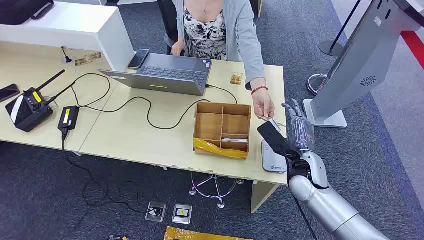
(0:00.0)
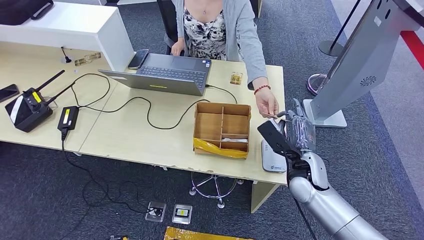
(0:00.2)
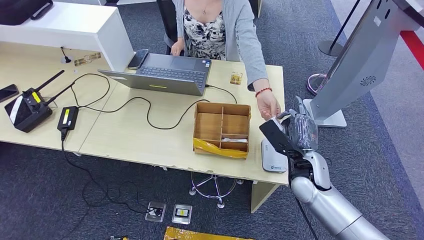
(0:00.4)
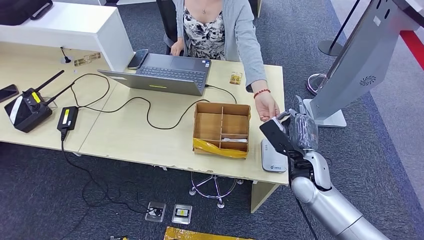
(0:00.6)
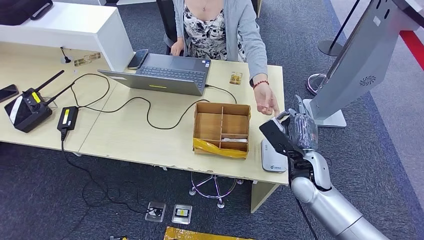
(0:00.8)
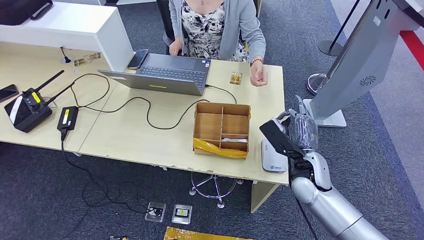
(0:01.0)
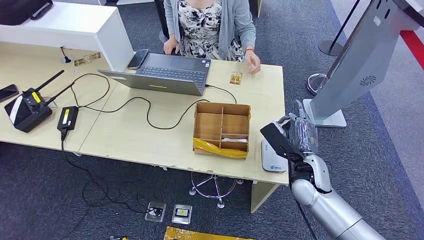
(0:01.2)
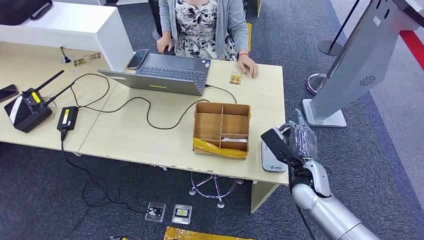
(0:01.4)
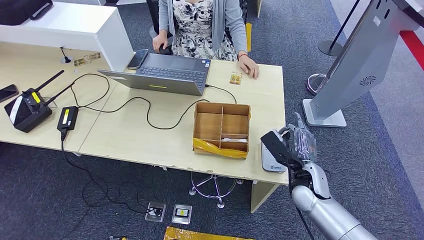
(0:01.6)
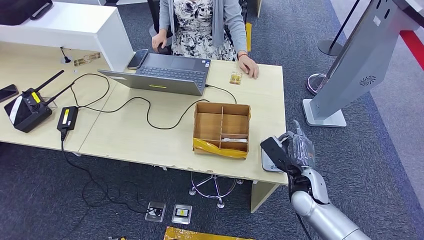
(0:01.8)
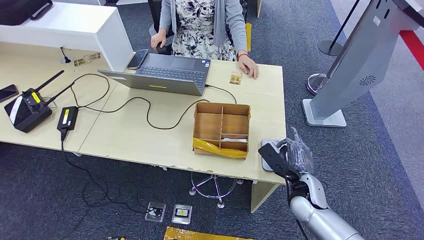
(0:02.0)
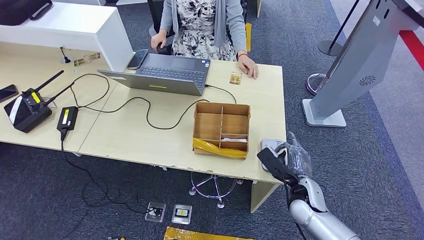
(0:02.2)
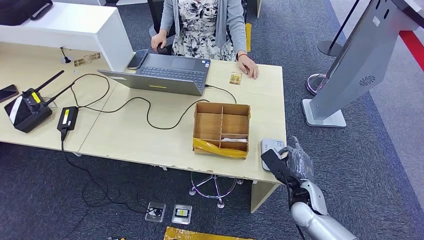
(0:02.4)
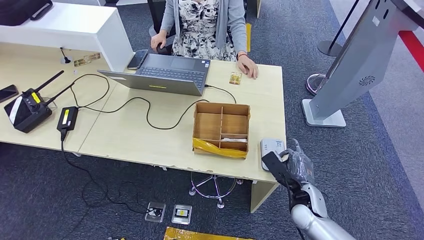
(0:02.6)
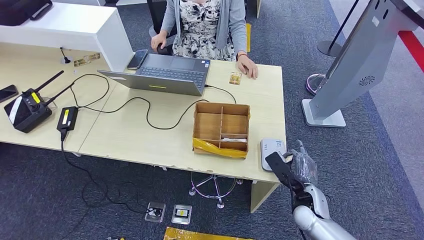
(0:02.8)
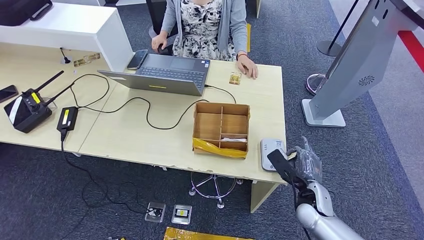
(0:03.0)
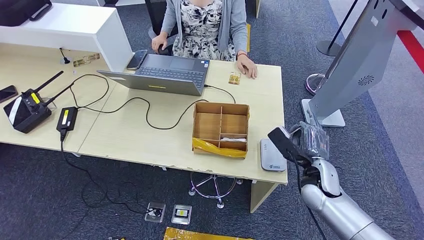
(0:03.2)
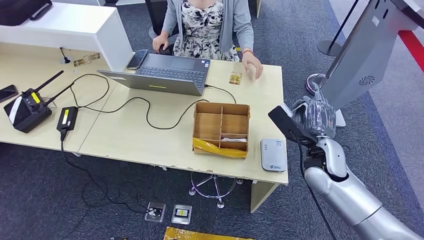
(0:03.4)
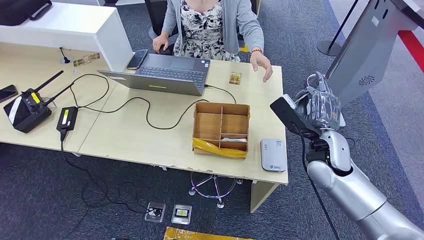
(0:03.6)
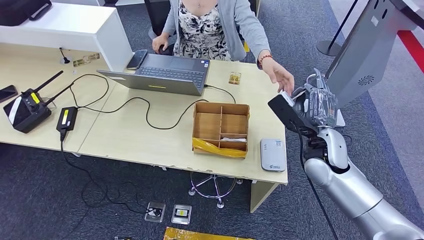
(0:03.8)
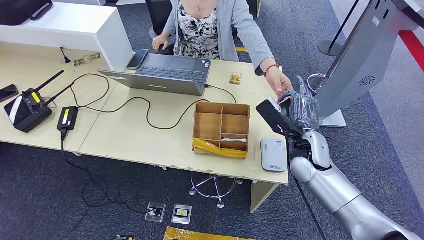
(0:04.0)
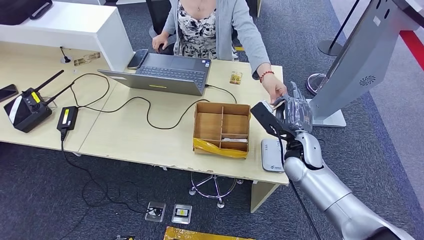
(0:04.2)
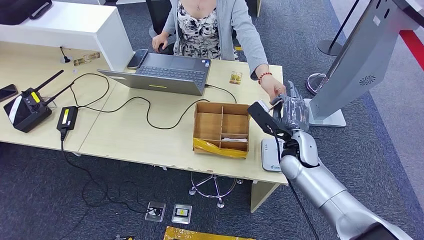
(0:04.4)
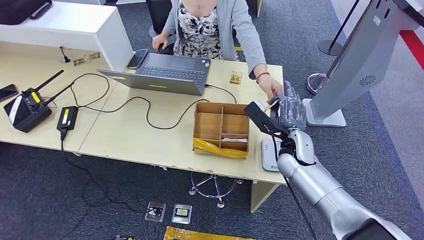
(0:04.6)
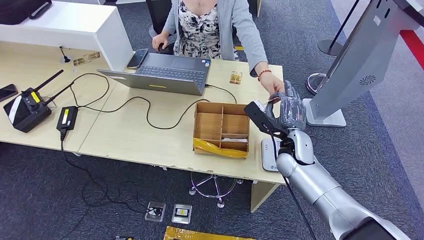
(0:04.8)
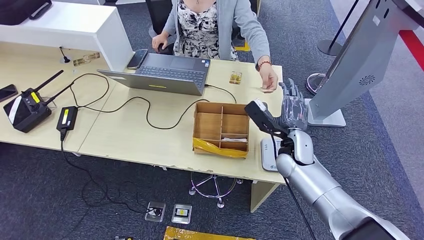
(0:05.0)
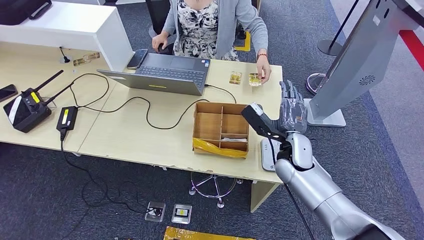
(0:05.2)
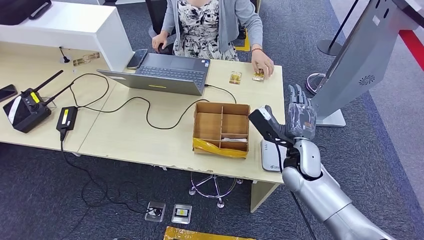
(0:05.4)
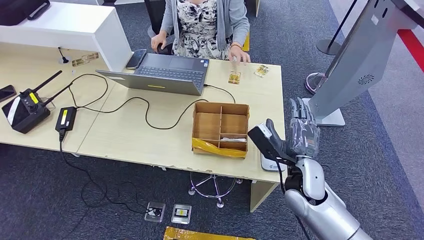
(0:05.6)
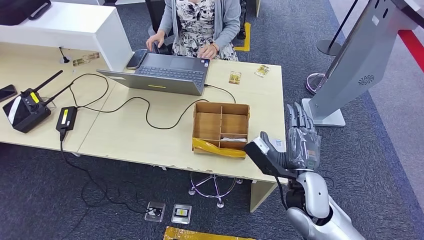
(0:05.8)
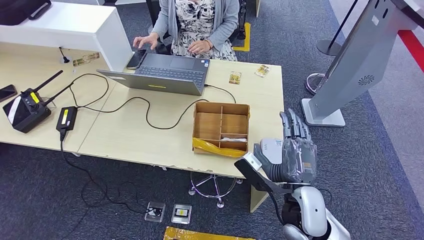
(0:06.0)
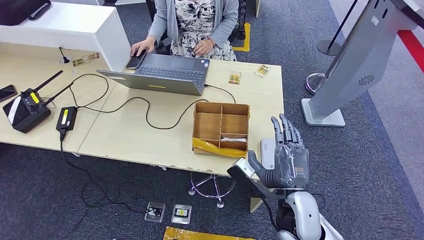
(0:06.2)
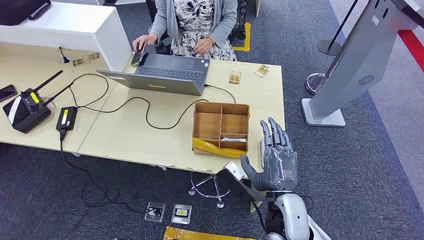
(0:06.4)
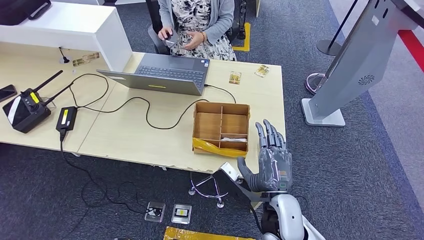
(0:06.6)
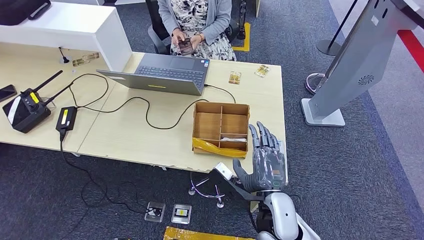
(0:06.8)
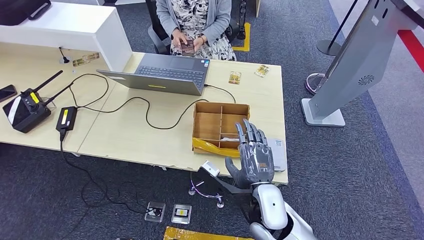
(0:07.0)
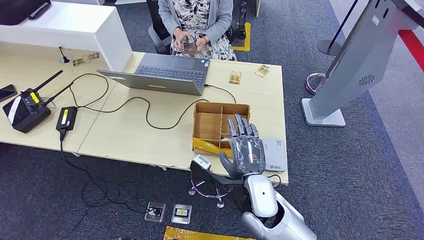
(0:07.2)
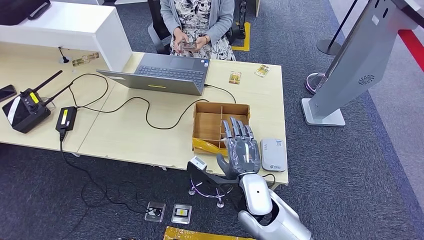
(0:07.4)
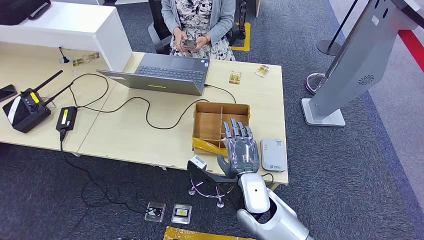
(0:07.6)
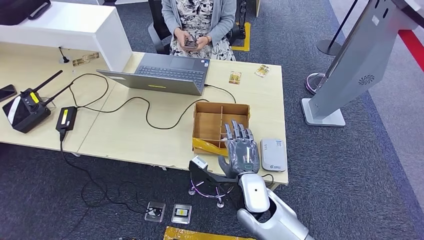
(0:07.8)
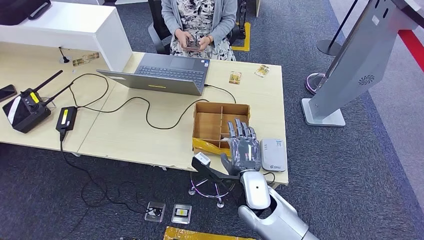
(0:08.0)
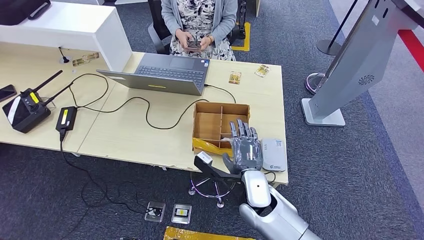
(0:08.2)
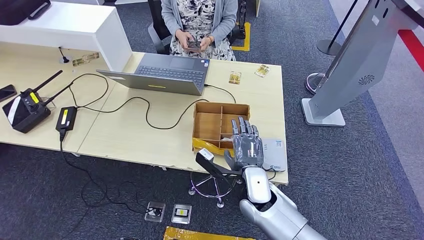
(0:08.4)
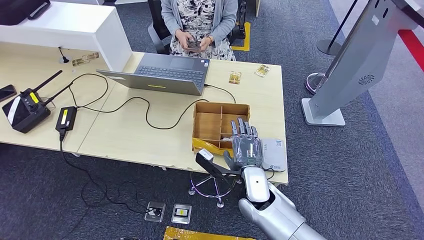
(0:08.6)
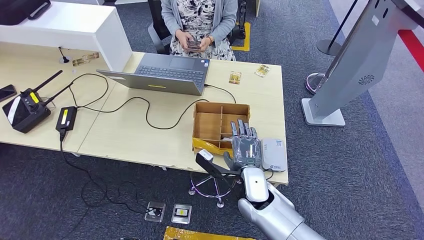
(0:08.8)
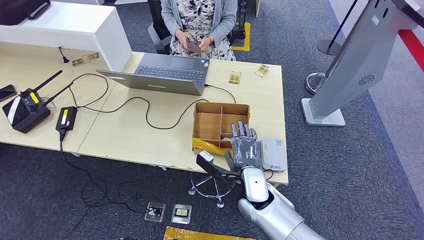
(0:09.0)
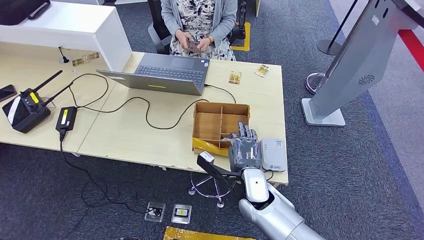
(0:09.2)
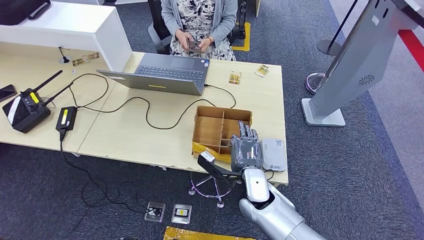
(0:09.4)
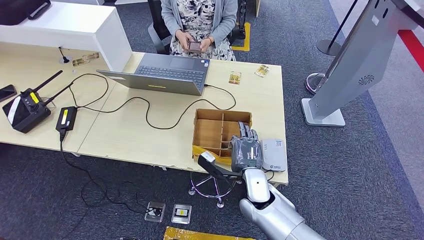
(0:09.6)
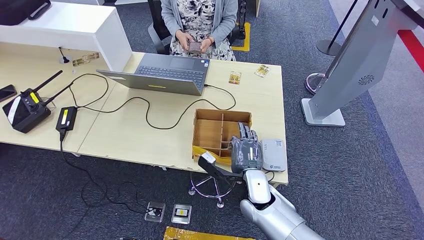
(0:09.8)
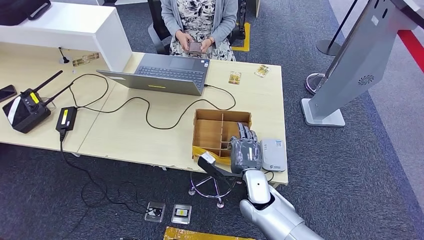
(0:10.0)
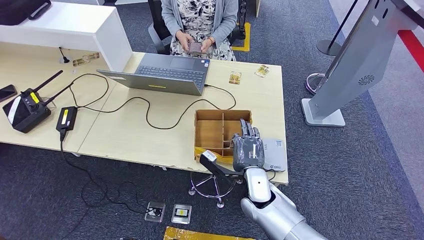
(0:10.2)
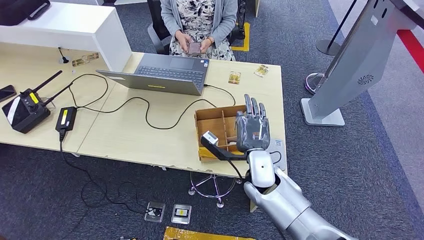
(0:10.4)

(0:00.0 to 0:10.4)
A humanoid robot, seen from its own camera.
Step, 0:00.0 - 0:01.6: Take the ID card from the person's hand.
Step, 0:01.8 - 0:03.6: Place the ID card on the card reader.
Step, 0:03.8 - 0:06.0: Hand the ID card to the person.
0:01.4 - 0:03.0: The right hand shifts approximately 5 cm downward.
0:03.0 - 0:04.4: The right hand heads upward, forward and to the left, covering some 15 cm.
0:04.4 - 0:06.0: The right hand travels backward by some 15 cm.
0:06.0 - 0:07.4: The right hand goes roughly 10 cm to the left.
0:07.4 - 0:09.0: The right hand changes place by some 5 cm.
0:09.0 - 0:10.4: The right hand moves some 5 cm.

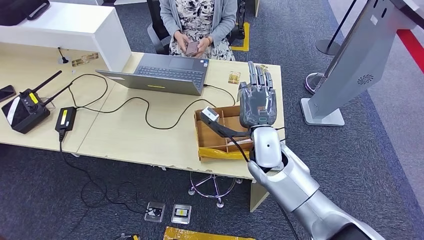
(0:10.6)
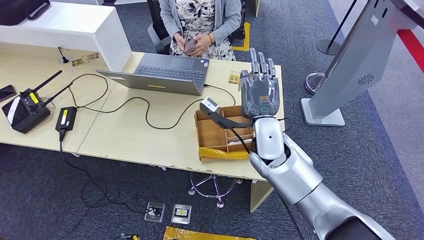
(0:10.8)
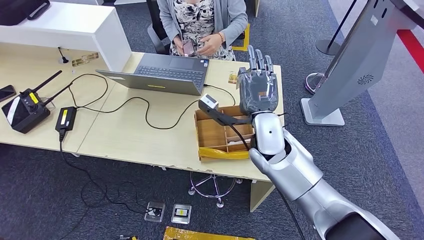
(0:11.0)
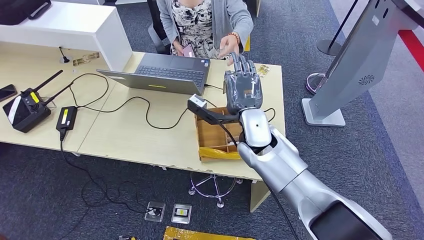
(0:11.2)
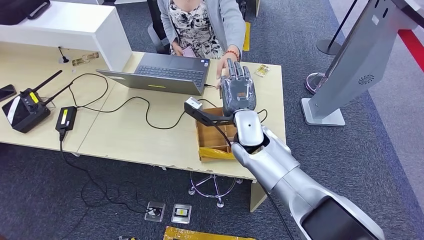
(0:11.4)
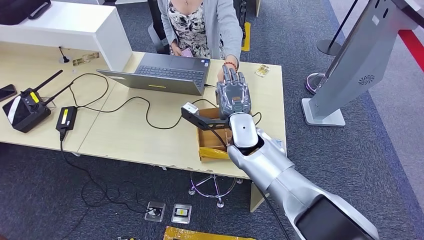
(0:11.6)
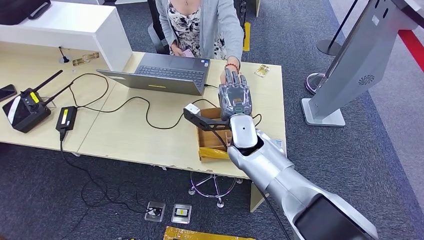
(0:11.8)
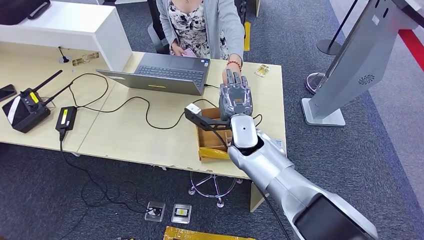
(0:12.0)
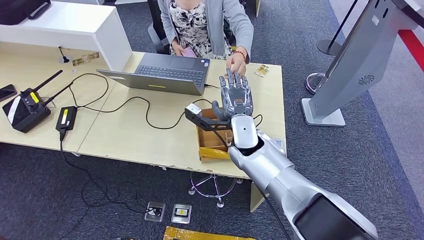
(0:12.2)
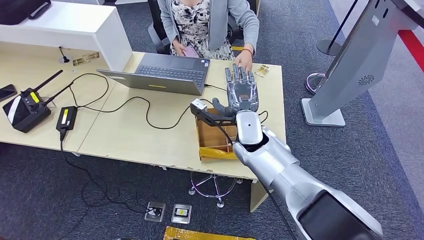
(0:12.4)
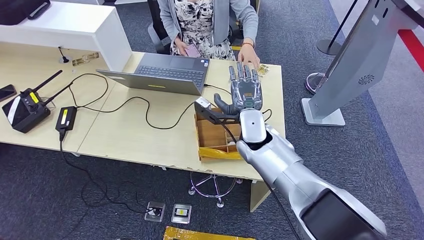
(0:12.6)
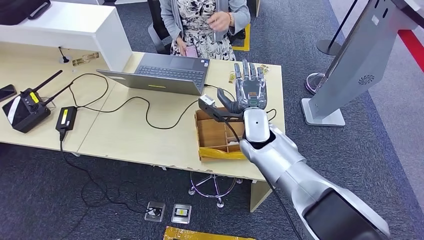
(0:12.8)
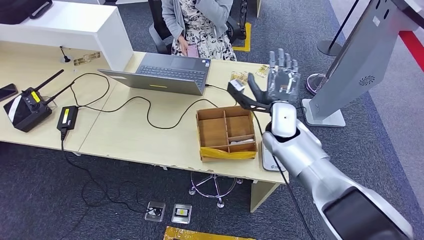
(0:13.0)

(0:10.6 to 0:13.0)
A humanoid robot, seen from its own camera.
Step, 0:11.4 - 0:13.0: Hand the room key to the person.
0:10.6 - 0:11.8: The right hand shifts roughly 5 cm forward.
